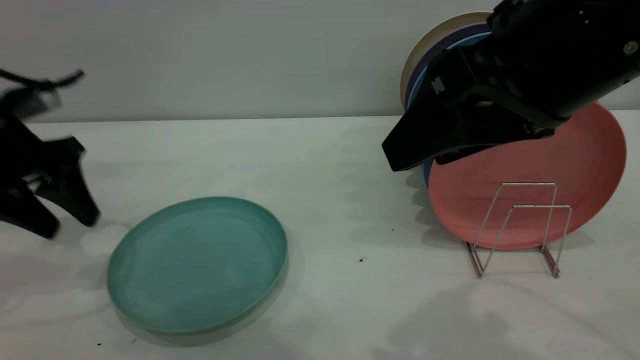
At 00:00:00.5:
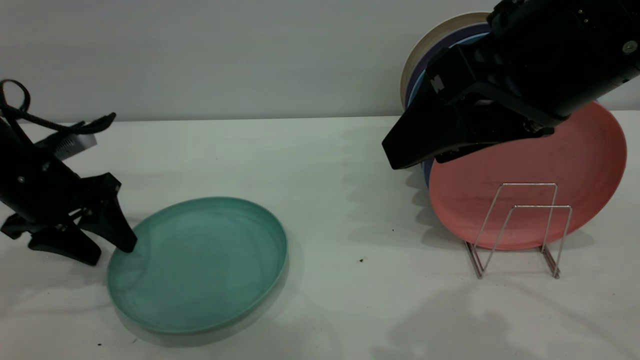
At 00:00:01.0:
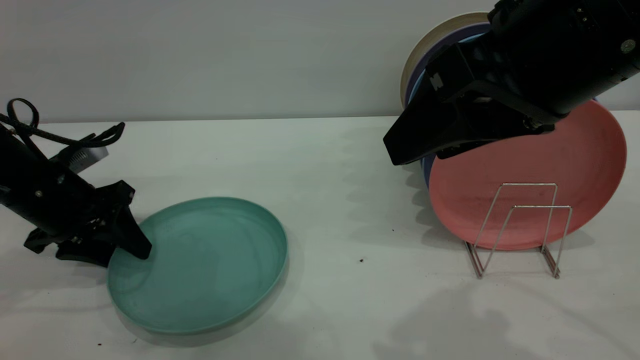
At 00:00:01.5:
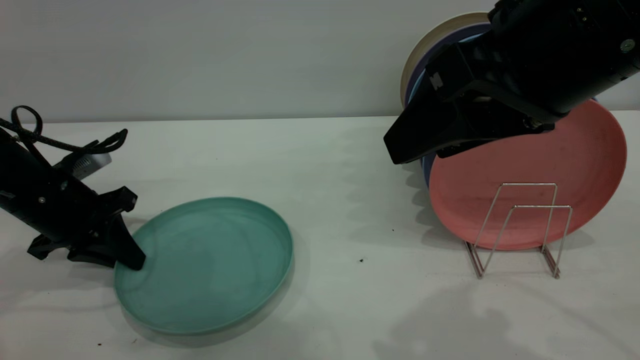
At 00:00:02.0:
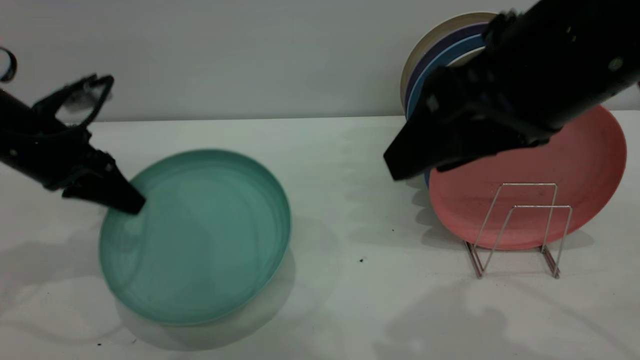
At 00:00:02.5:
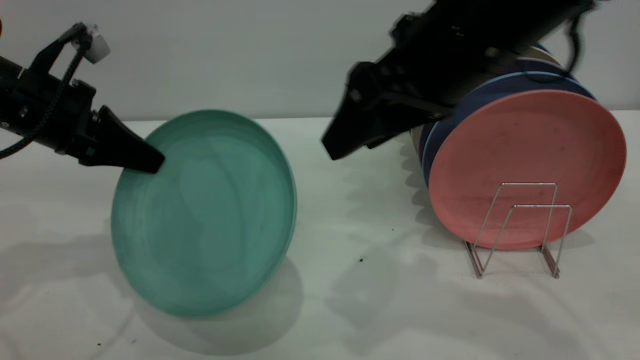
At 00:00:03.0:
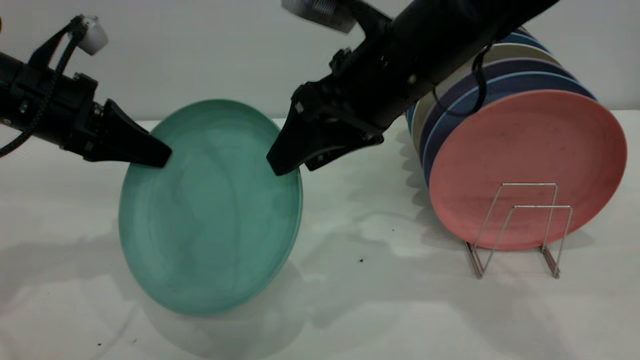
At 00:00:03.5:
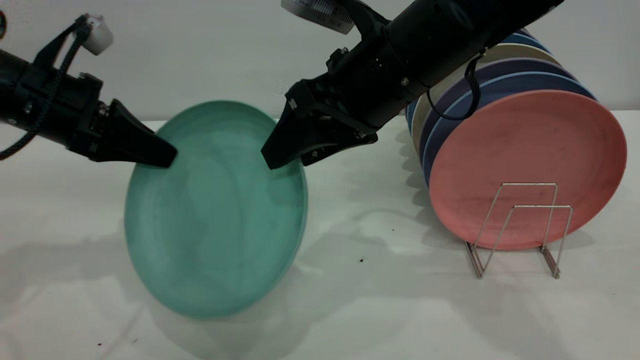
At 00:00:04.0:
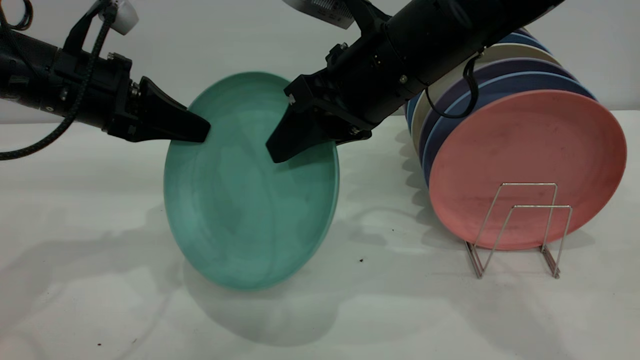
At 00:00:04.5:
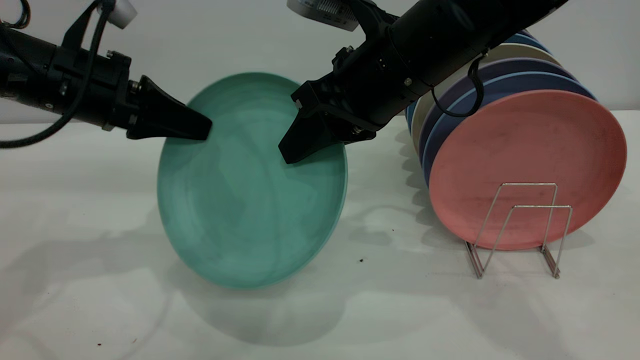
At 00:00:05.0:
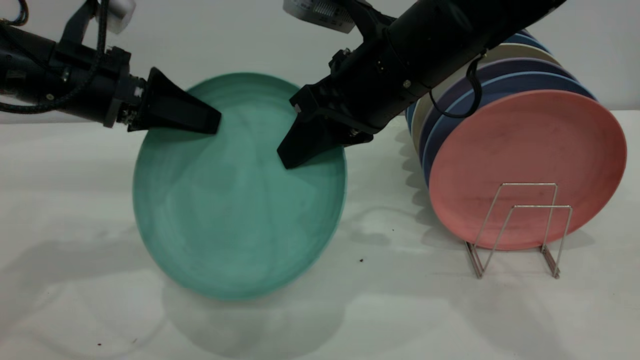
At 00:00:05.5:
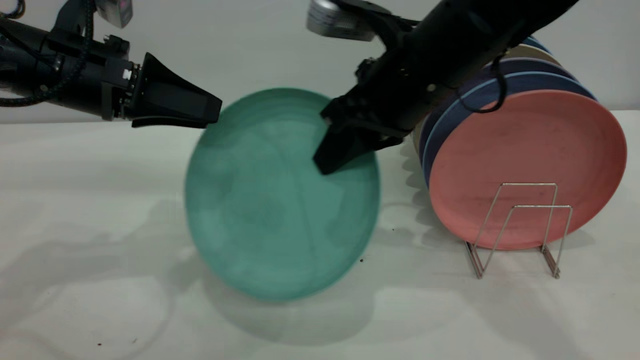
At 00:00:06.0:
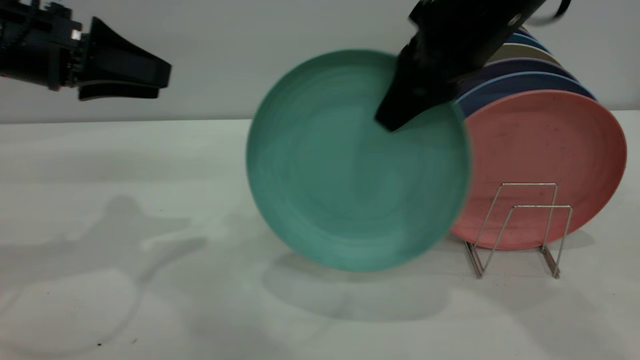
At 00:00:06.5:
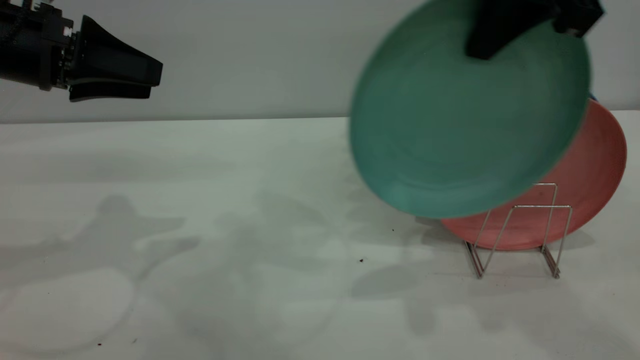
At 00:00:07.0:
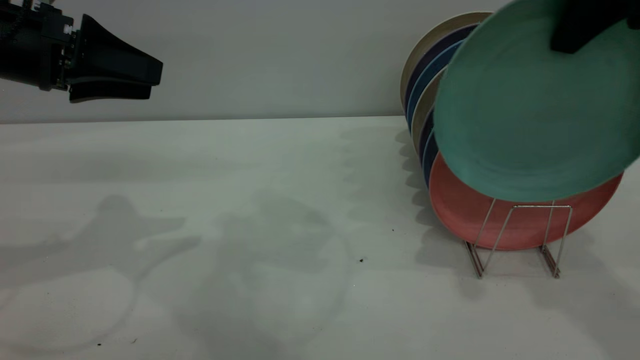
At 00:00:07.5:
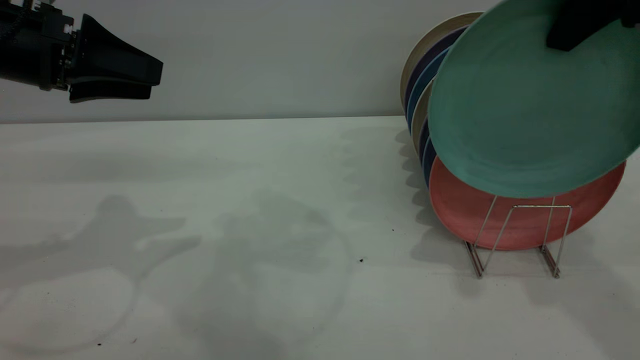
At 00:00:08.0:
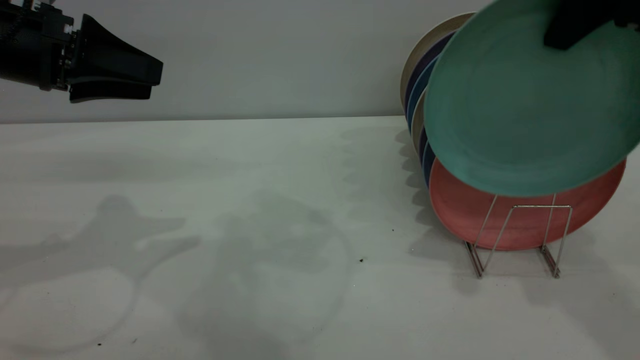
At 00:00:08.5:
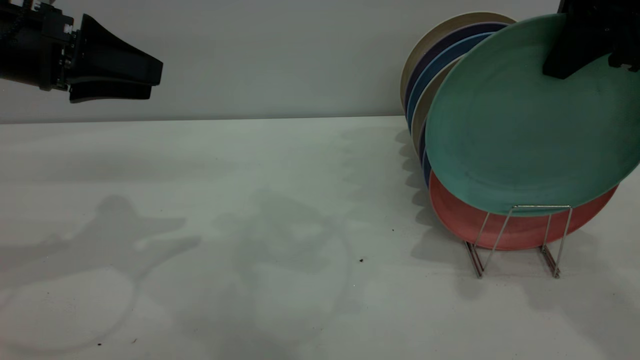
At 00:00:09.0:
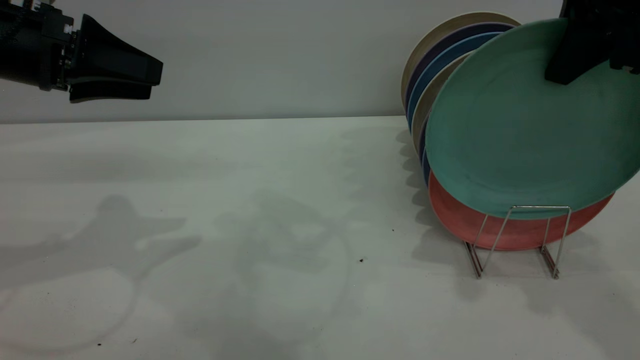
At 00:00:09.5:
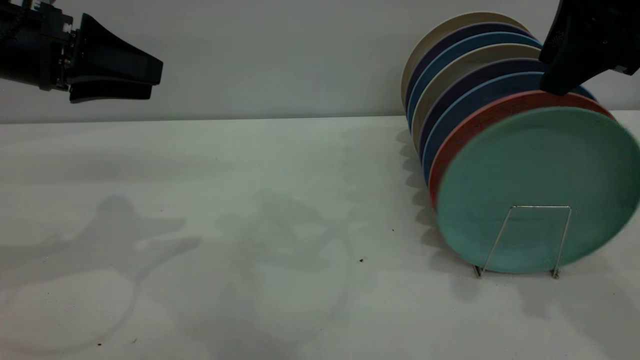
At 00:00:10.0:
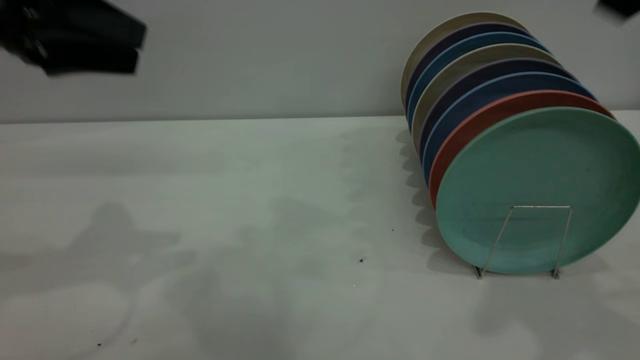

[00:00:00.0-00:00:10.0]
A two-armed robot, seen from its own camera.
Task of the whole recording: the left gripper grasp the green plate, the left gripper pass the green plate to the right gripper, and the right gripper place the green plate on the plate rack.
Step, 00:00:02.0 to 00:00:05.5: Pass the plate from the left gripper to the right gripper.
Step, 00:00:06.0 to 00:00:09.5: Place the plate on the shelf.
00:00:00.0 to 00:00:02.0: The left gripper travels downward and back again, some 10 cm each way, and closes.
00:00:02.0 to 00:00:04.0: The right gripper moves forward, to the left and downward, some 15 cm, and closes up. The left gripper is displaced to the right by approximately 5 cm.
00:00:04.0 to 00:00:06.0: The right gripper is displaced to the right and upward by roughly 10 cm, and closes its fingers, while the left gripper moves roughly 5 cm, and opens up.
00:00:06.0 to 00:00:08.0: The right gripper shifts approximately 10 cm to the right and upward.
00:00:08.0 to 00:00:10.0: The left gripper travels upward by about 5 cm. The right gripper moves backward and upward, roughly 10 cm, and opens its fingers.
